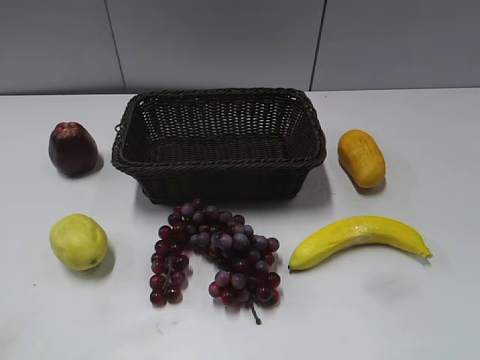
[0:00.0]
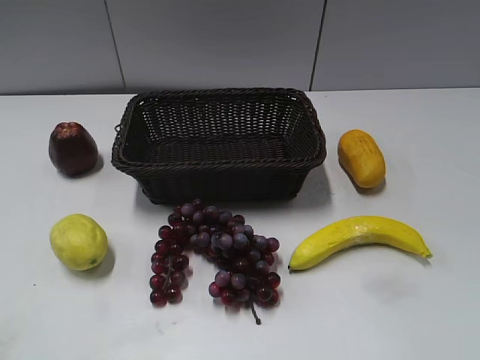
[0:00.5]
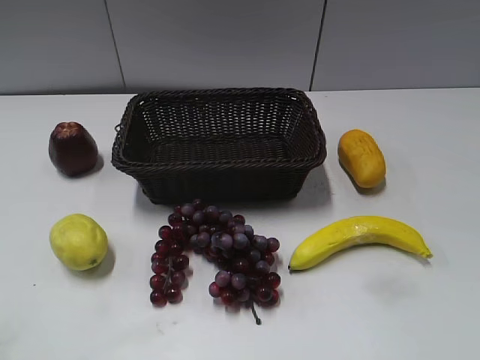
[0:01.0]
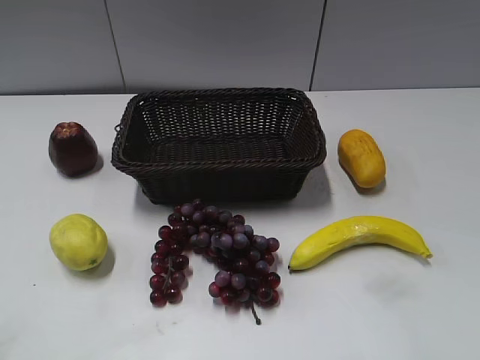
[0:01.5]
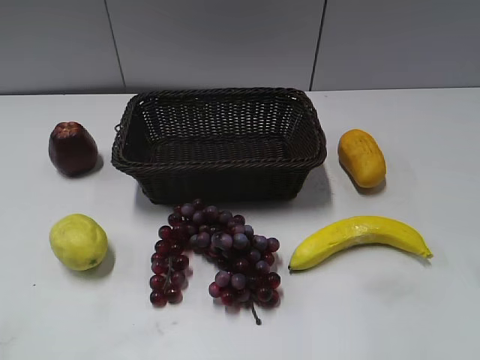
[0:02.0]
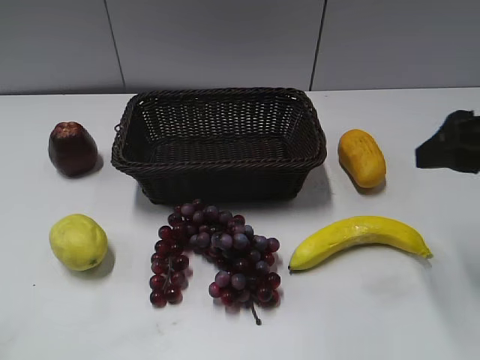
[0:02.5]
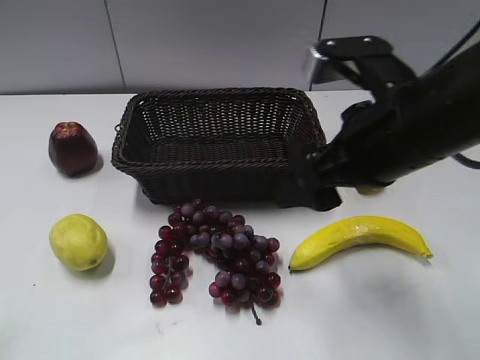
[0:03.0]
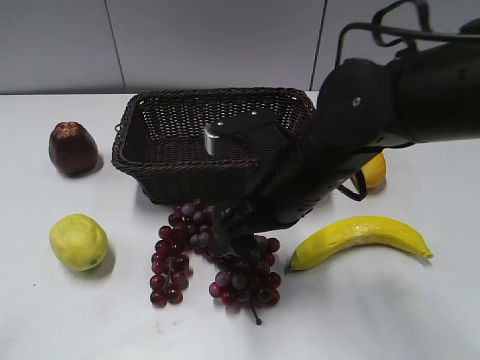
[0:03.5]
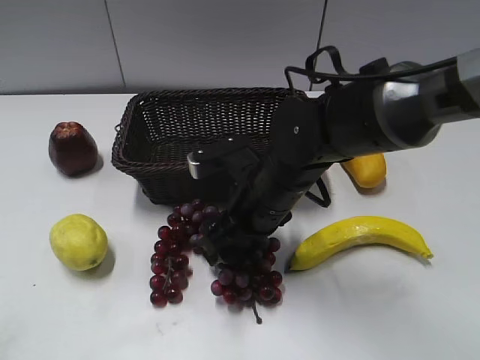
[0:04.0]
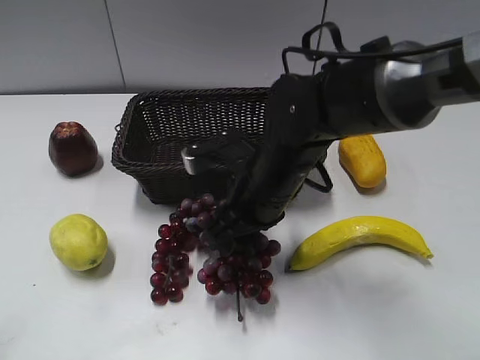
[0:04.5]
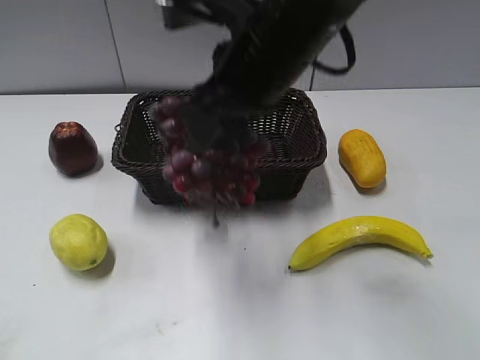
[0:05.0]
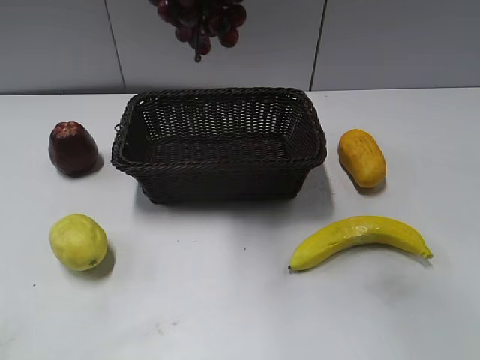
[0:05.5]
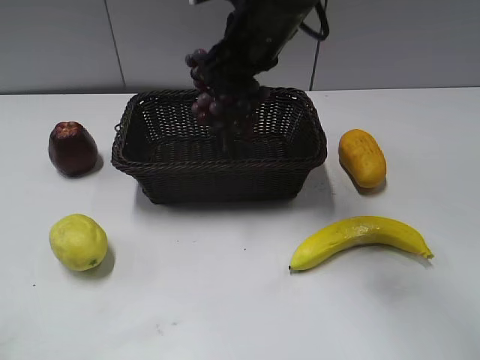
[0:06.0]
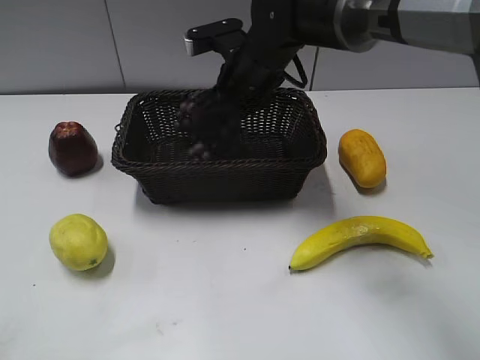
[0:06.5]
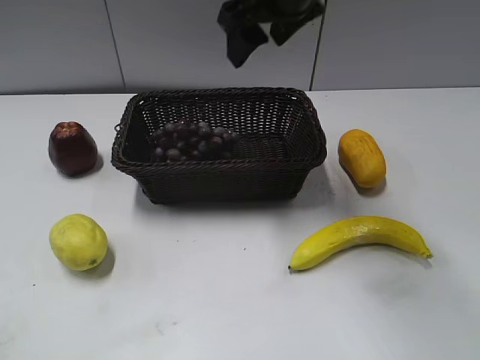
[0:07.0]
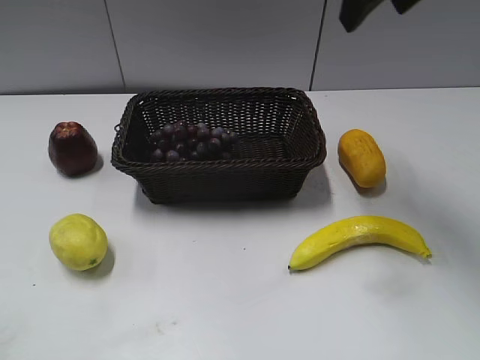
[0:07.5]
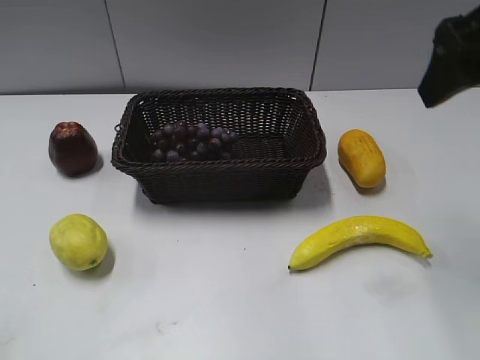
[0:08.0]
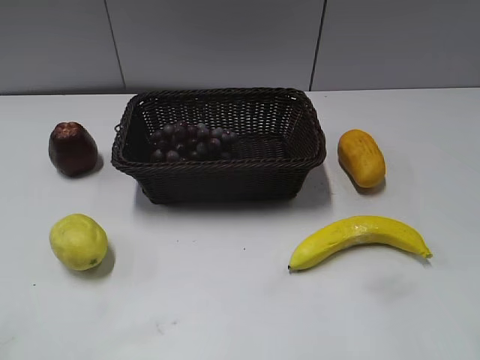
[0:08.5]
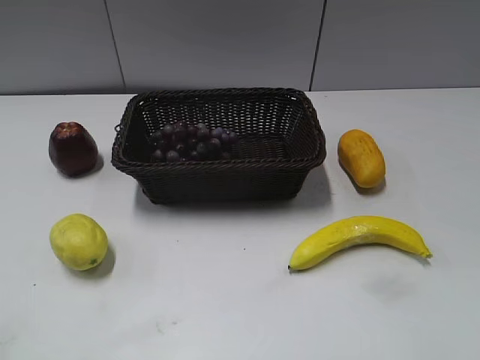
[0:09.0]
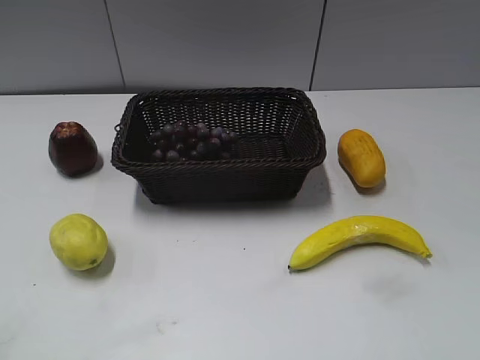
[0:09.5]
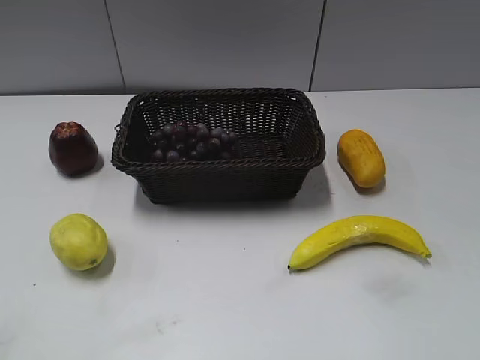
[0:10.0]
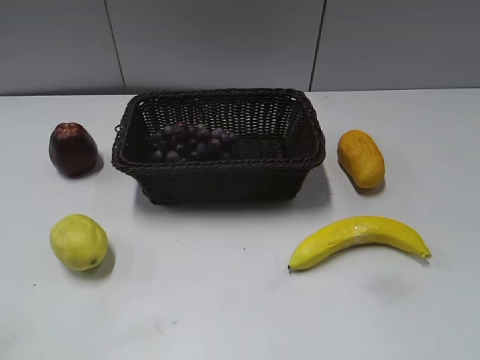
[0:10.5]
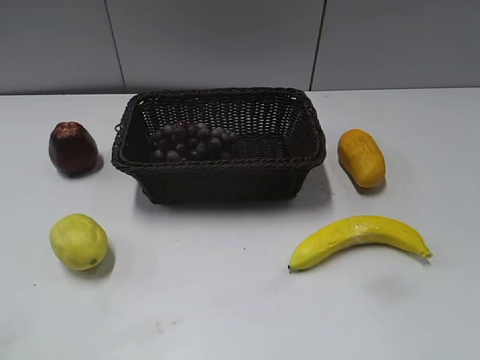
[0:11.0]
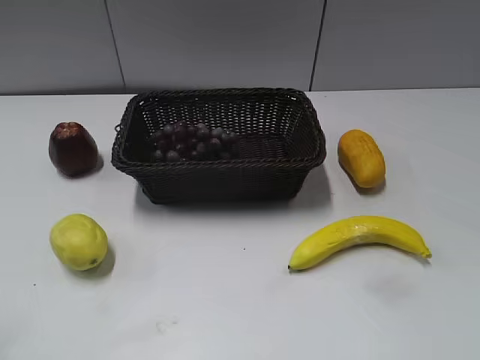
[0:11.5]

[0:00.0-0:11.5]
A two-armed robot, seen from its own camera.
Step, 2.5 to 4.0 s: Grasp the grape with right gripper.
Step, 4.5 to 6.5 s: Place the grape in the basket with right gripper.
2.0 to 4.0 s: The right gripper is displaced to the left, downward and forward by roughly 30 cm.
4.0 to 6.0 s: The right gripper is displaced upward and forward by some 15 cm, and closes.
6.0 to 7.5 s: The right gripper travels to the right and upward by about 20 cm, and opens.
7.5 to 9.5 s: The right gripper goes roughly 30 cm backward, downward and to the right.

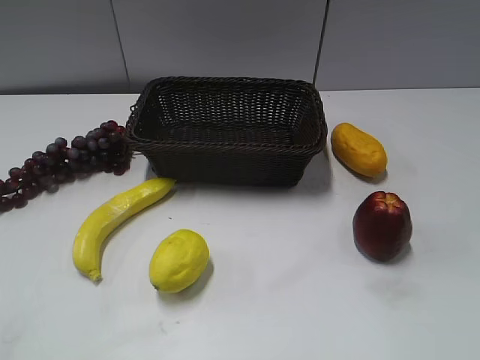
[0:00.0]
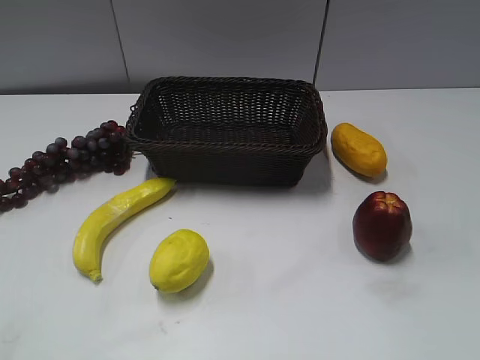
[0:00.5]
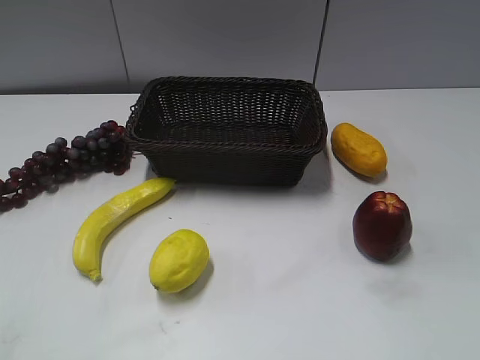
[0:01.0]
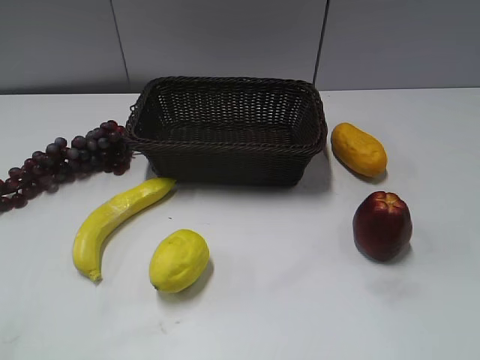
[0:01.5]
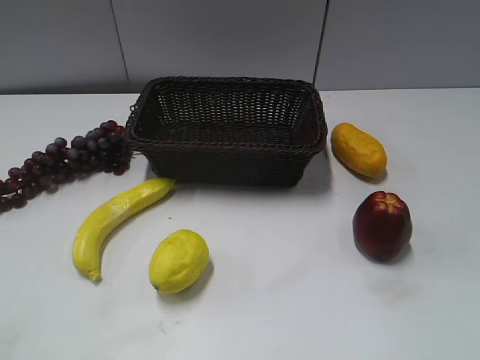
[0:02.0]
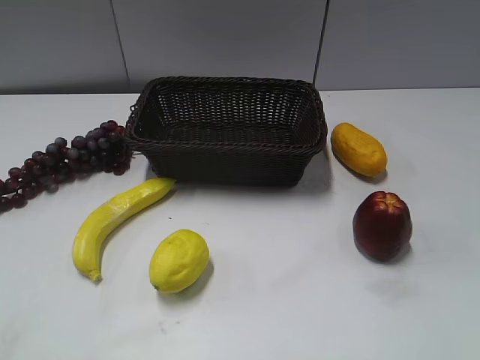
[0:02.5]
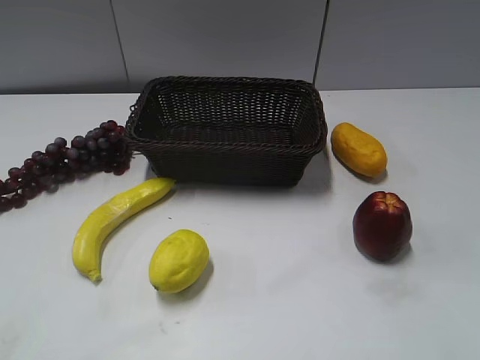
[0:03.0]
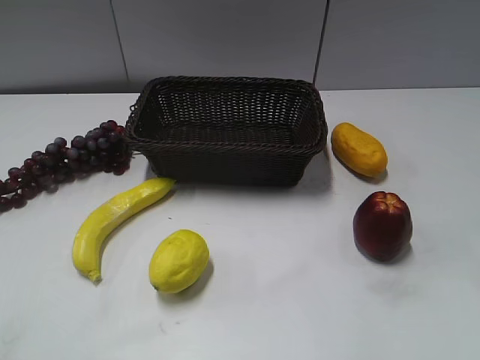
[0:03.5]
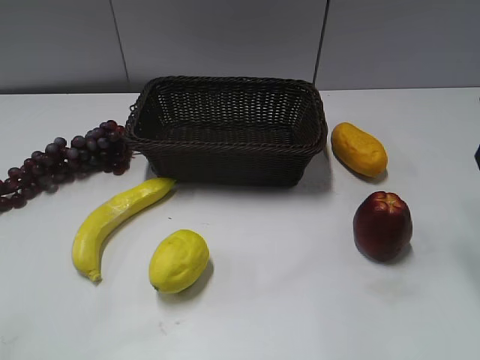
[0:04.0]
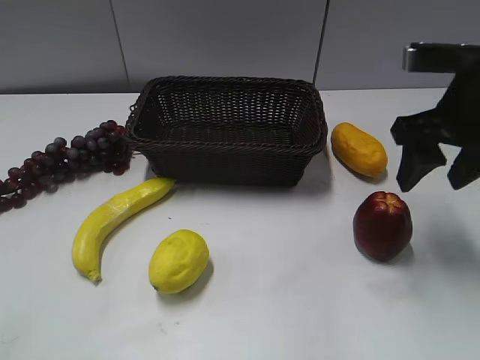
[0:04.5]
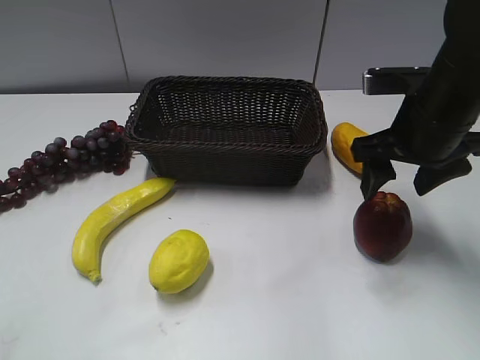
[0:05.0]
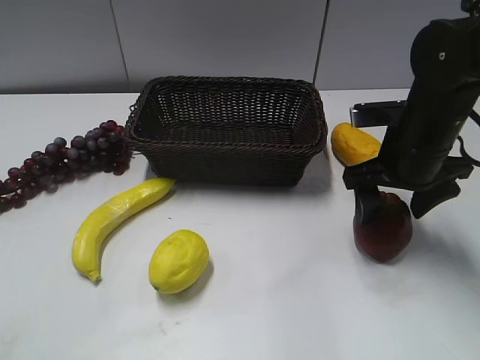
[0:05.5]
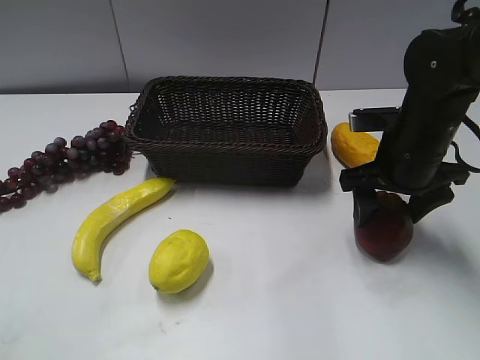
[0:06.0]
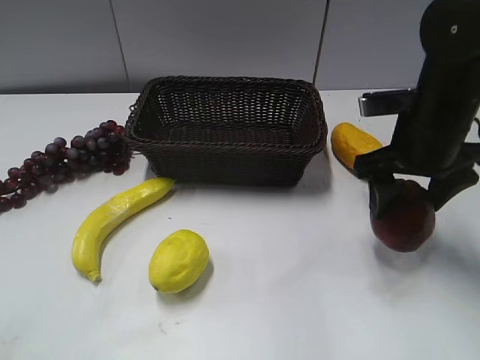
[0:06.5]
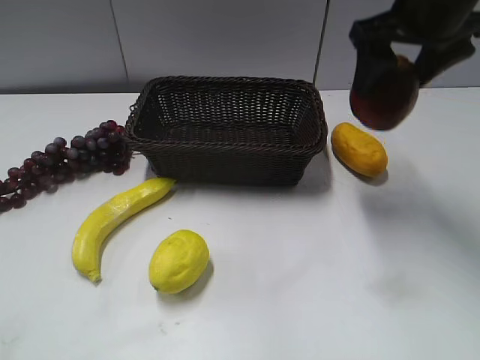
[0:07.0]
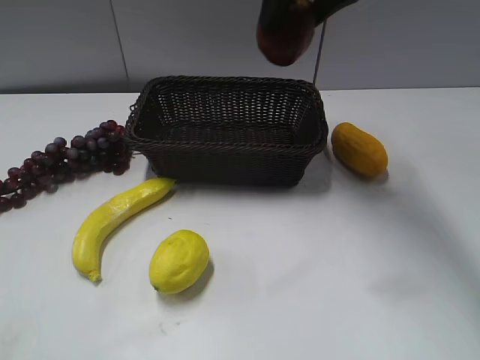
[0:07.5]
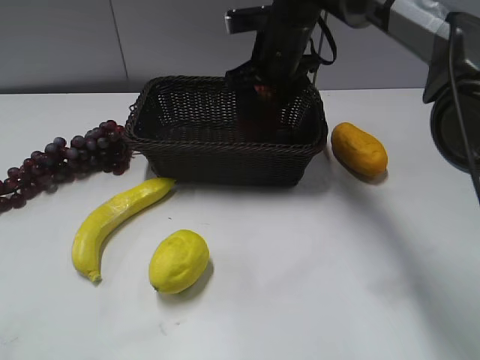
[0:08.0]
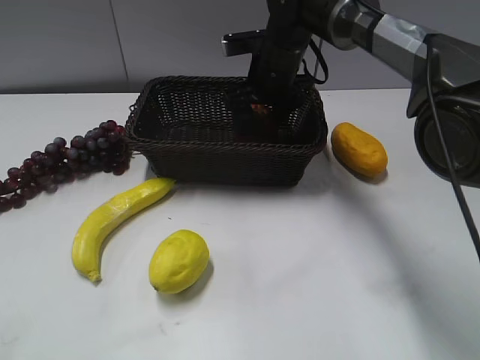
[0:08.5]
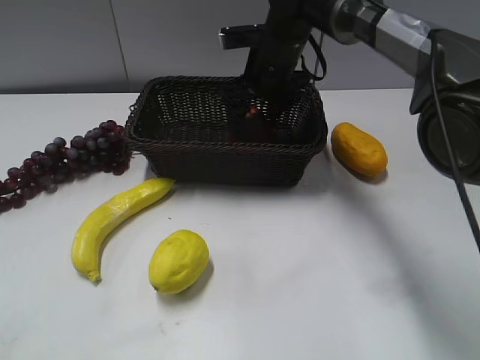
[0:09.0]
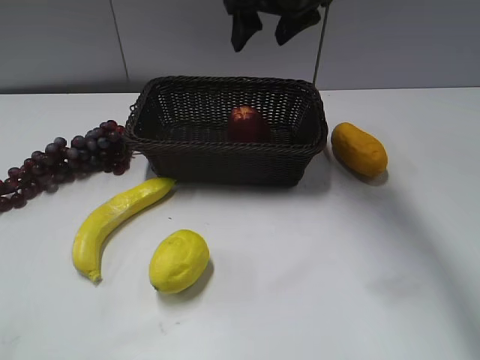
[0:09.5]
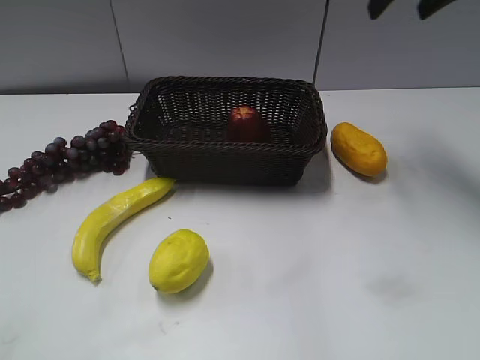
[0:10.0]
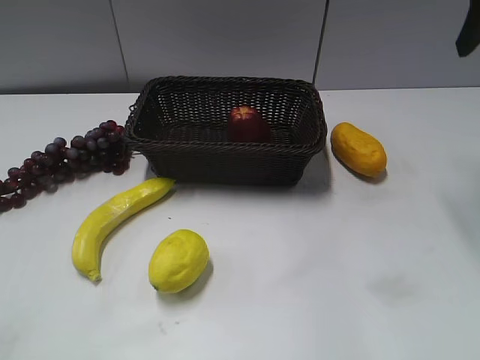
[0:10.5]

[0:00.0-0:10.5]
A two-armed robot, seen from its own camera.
Step, 4.0 to 5.5 s: Grasp the apple with right gripper.
Step, 6.0 to 8.5 s: Place the apple in the basket with right gripper.
4.0 to 6.5 s: The right gripper is displaced to the left and downward by approximately 15 cm, and opens.
6.5 to 8.5 s: The right gripper travels forward and to the left by approximately 20 cm, and reaches some 15 cm upward, then returns.
8.5 to 10.5 s: The right gripper is displaced to the right, upward and backward by roughly 30 cm.

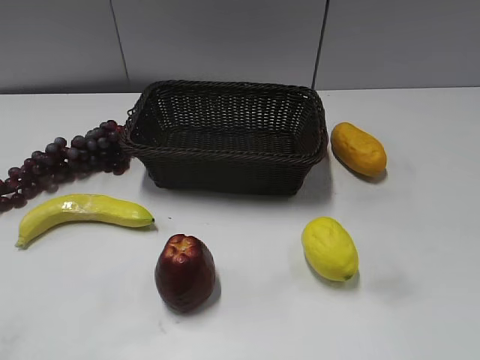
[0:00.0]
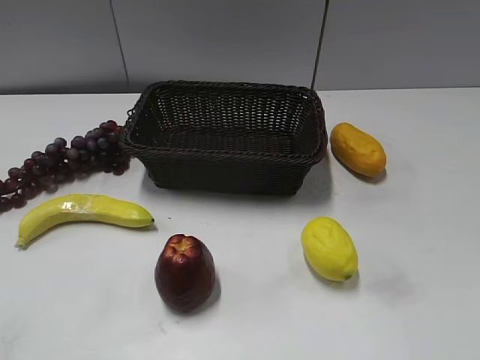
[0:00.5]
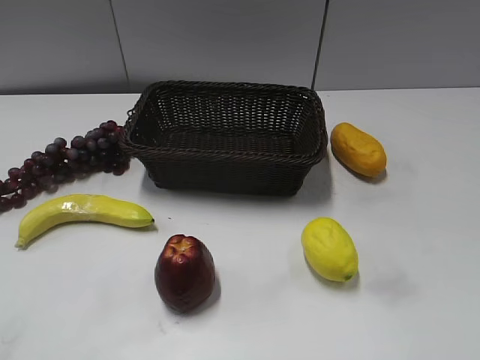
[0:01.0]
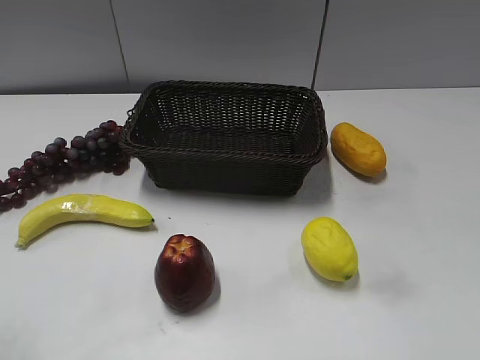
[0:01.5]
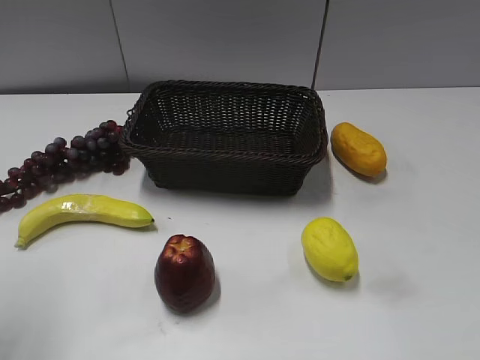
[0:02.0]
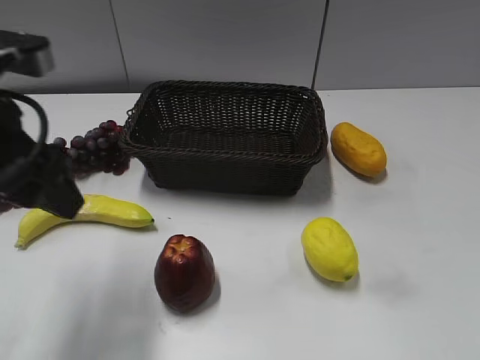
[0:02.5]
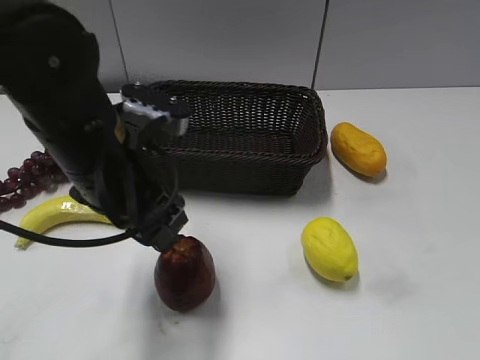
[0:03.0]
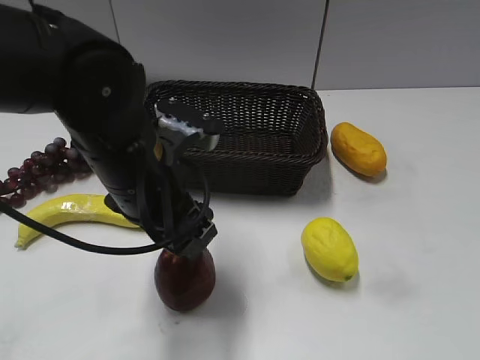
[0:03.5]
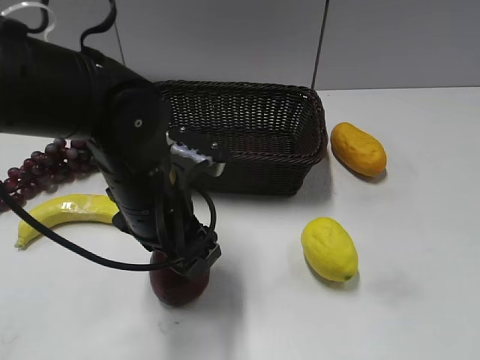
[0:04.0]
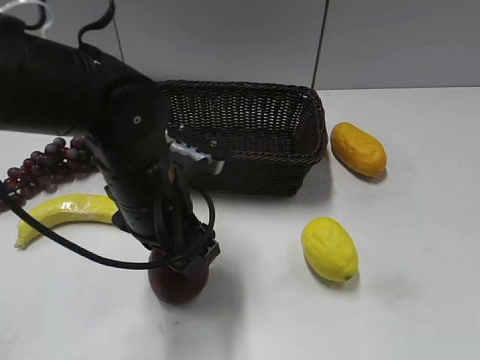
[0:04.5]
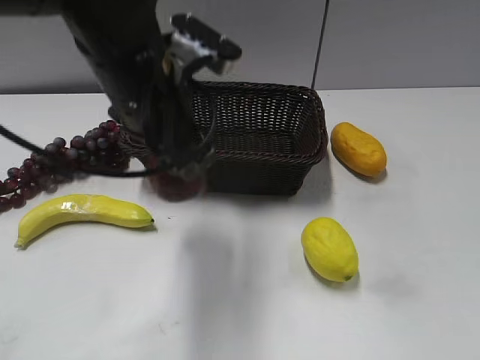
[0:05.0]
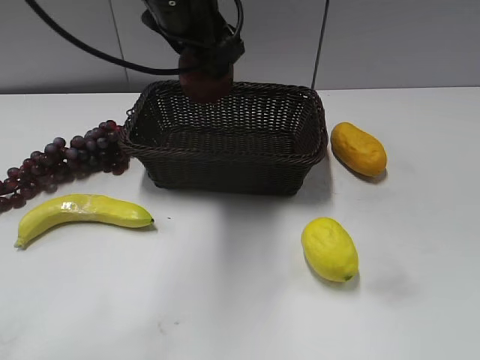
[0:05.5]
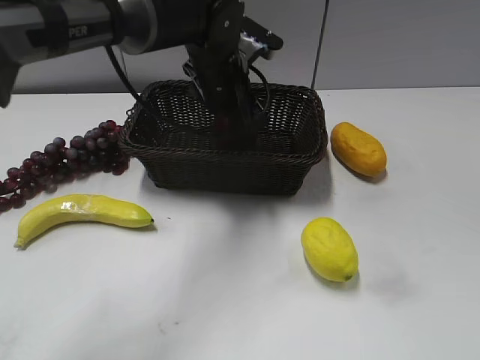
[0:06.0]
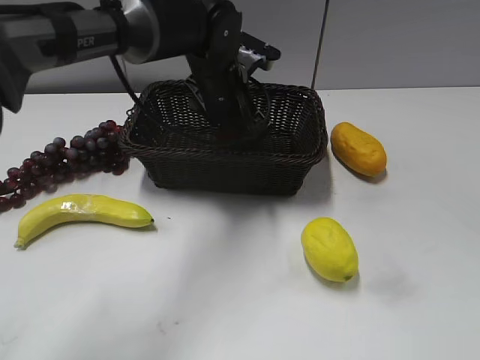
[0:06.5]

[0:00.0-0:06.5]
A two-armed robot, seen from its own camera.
Step, 2.5 to 4.0 s: Grasp the apple with left gripper.
Step, 4.5 to 6.0 s: Place the apple in the basket with left gripper.
2.0 to 4.5 s: The left gripper shifts about 30 cm to the right and downward.
4.5 to 6.5 s: The left gripper travels forward by about 15 cm, and opens up.
